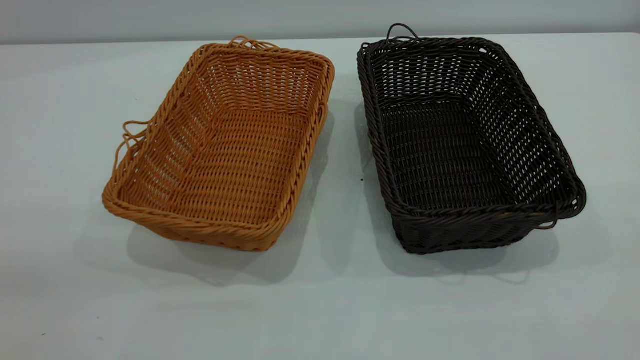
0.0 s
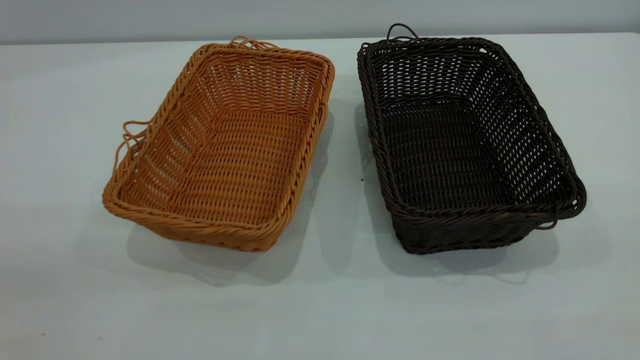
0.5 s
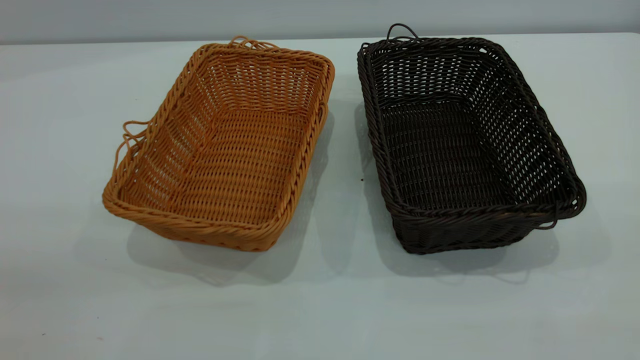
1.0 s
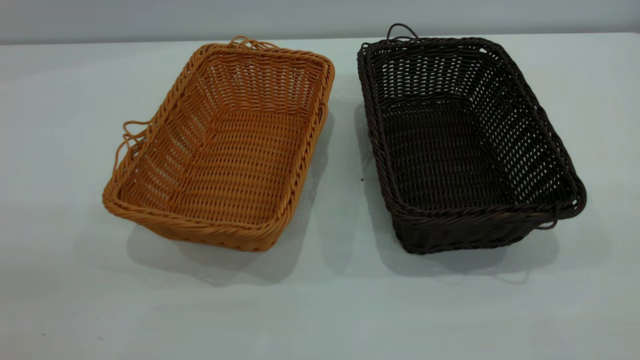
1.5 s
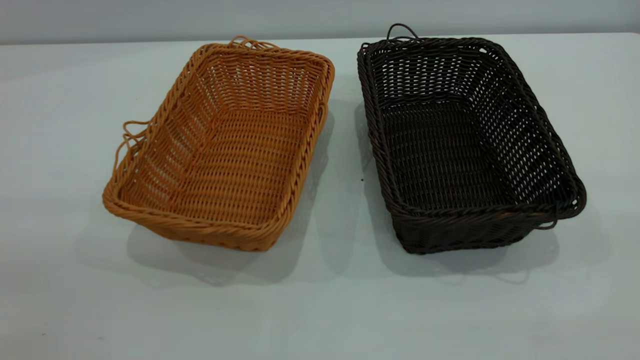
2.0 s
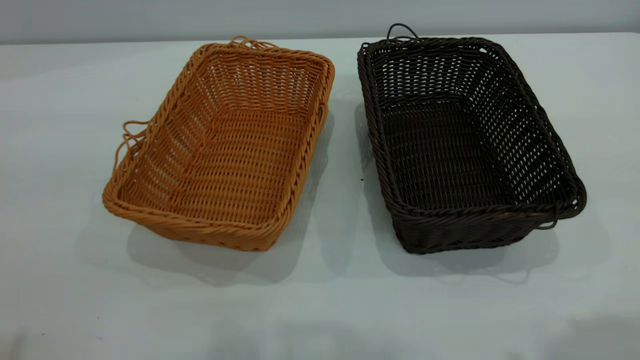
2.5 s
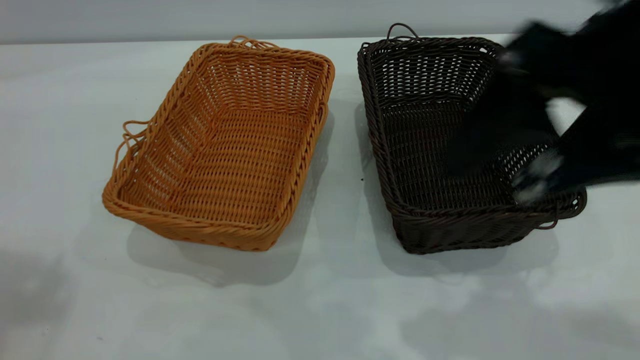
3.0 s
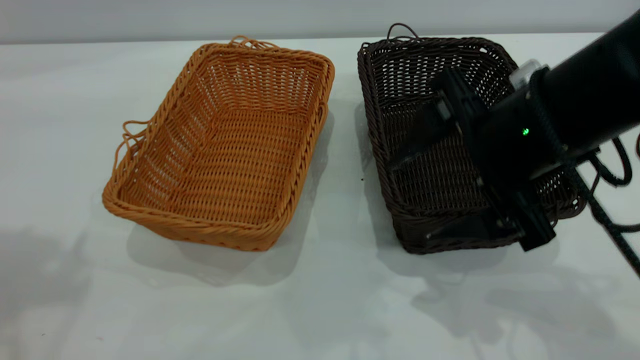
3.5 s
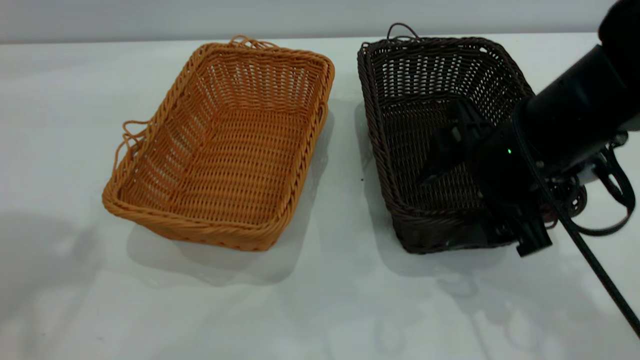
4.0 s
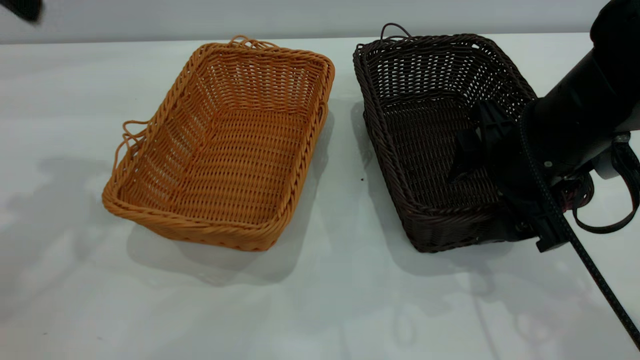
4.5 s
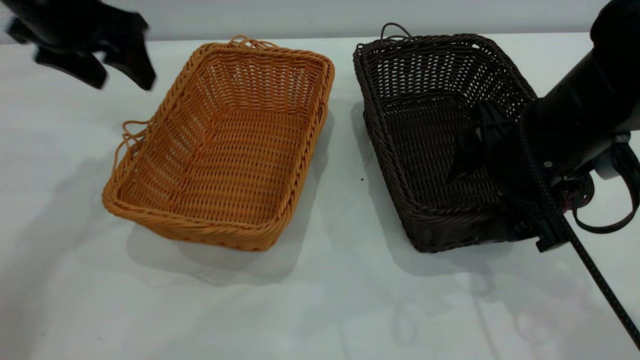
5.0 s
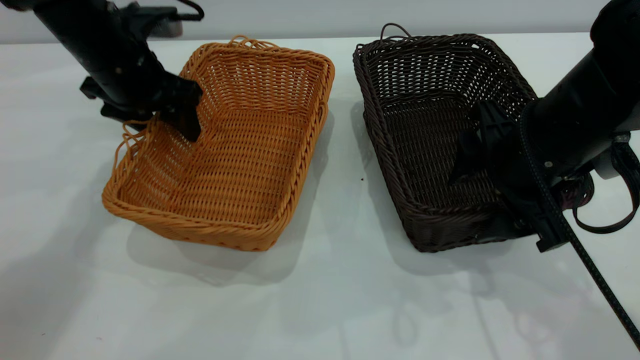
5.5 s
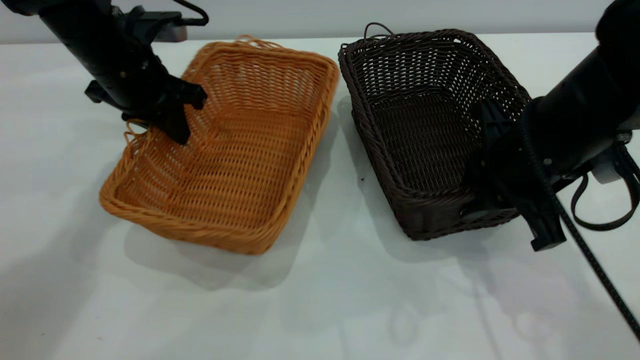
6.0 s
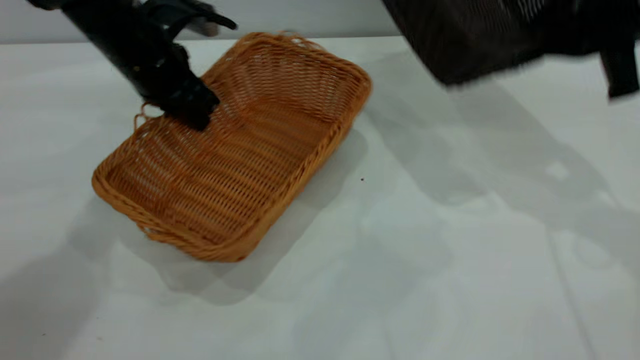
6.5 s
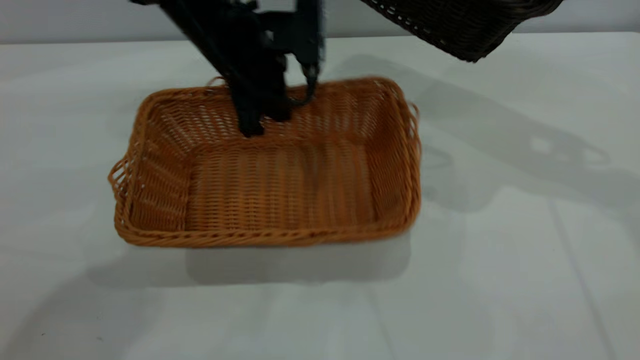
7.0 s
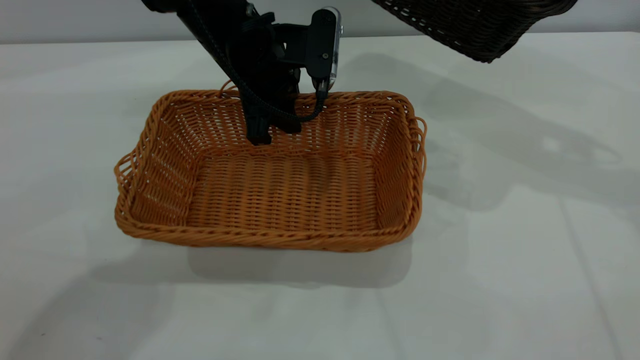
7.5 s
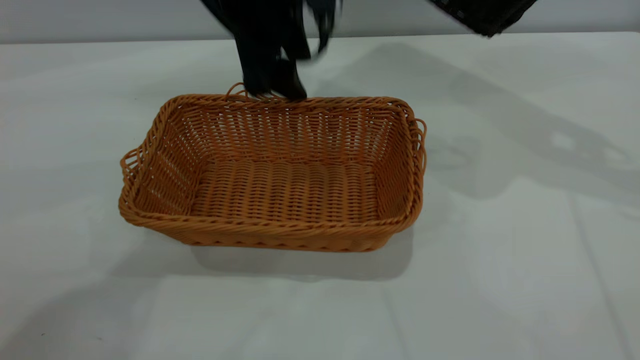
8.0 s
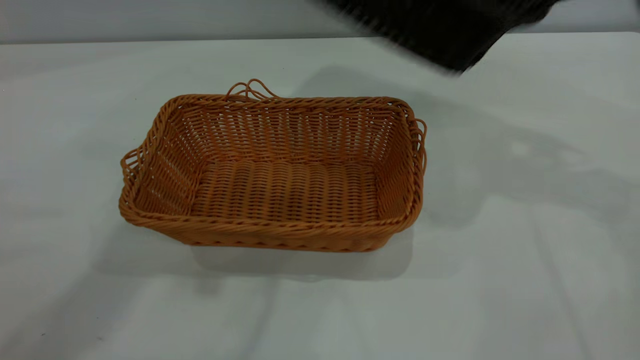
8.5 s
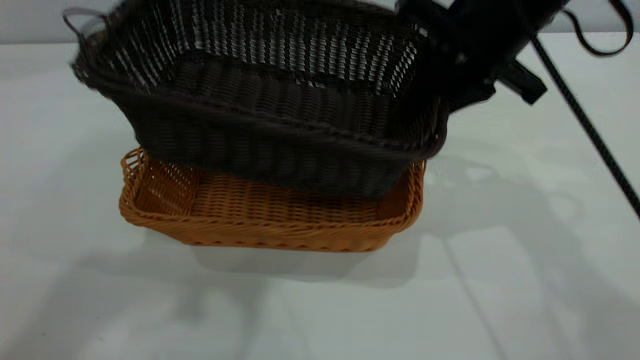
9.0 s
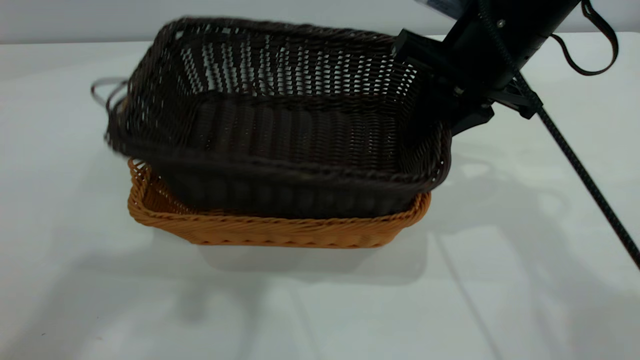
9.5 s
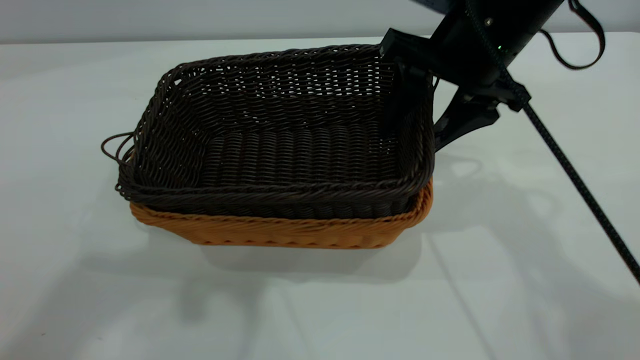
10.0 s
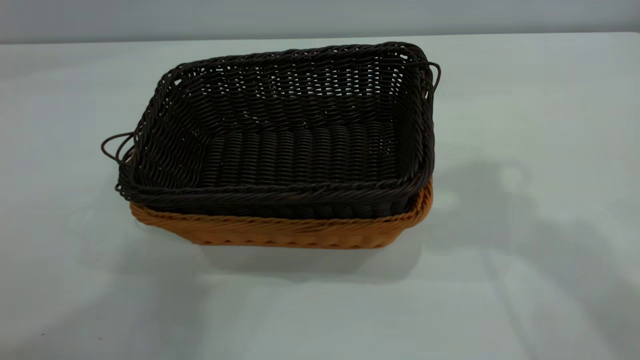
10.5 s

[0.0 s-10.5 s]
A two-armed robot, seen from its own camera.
Task of the whole recording: the left gripper grasp the brown basket and place it in the center of the table, the right gripper grasp the black basket and place it inside the brown one.
Step, 0.0 to 6.0 s: Pick up the light basket with the right gripper.
Step, 6.5 to 7.5 s: Place the light-colored basket in the center.
Step, 8.5 to 10.0 s: Place the dark basket on top of the light basket.
2.0 to 4.0 s: The right gripper goes some 35 cm forward, downward and to the left.
4.0 to 6.5 s: The right gripper shifts roughly 15 cm upward, to the right and forward, and closes its fingers; the left gripper travels downward, forward and to the right by roughly 35 cm, and closes up.
6.5 to 8.5 s: The right gripper moves about 5 cm. Meanwhile the left gripper travels upward and backward by some 30 cm, and opens.
8.5 to 10.5 s: The right gripper shifts approximately 15 cm upward and backward, and opens its fingers, while the left gripper is displaced upward, backward and to the left by approximately 20 cm.
